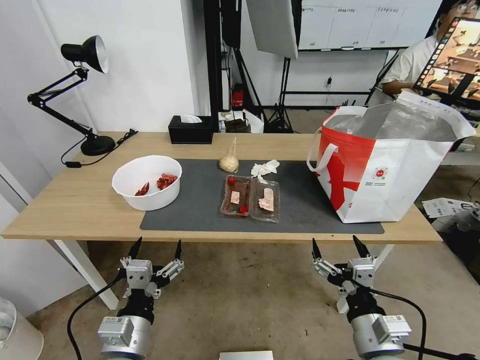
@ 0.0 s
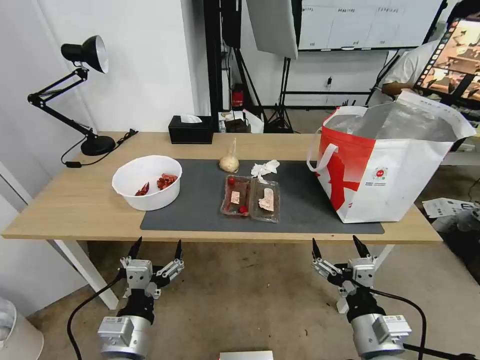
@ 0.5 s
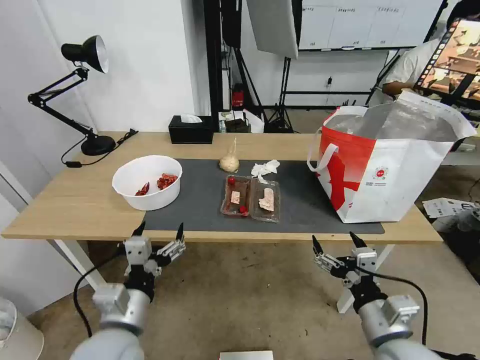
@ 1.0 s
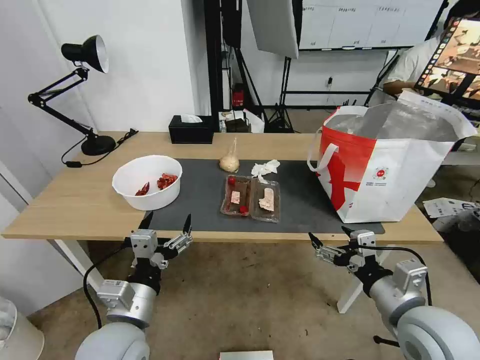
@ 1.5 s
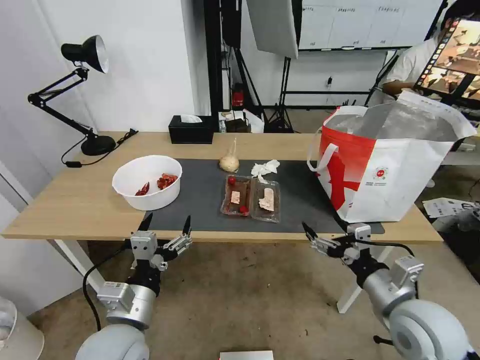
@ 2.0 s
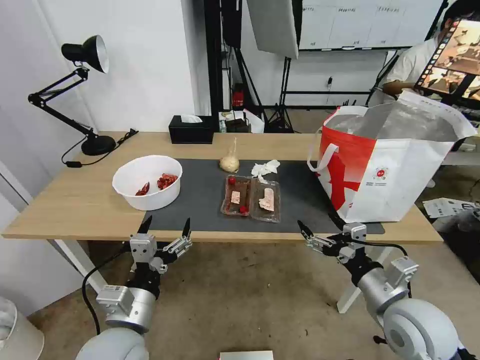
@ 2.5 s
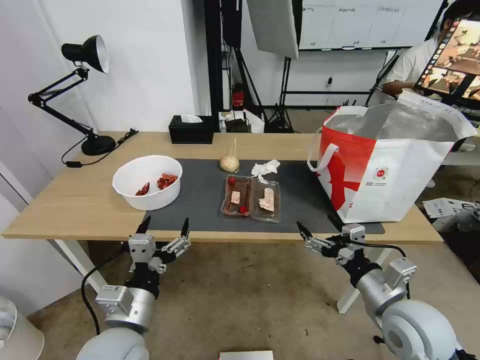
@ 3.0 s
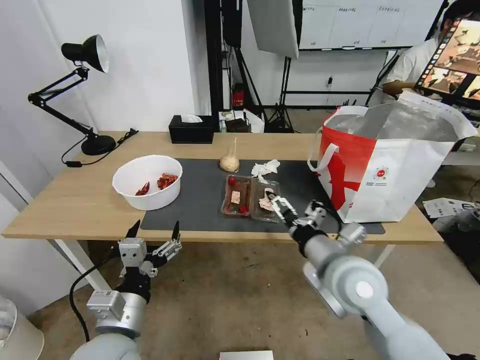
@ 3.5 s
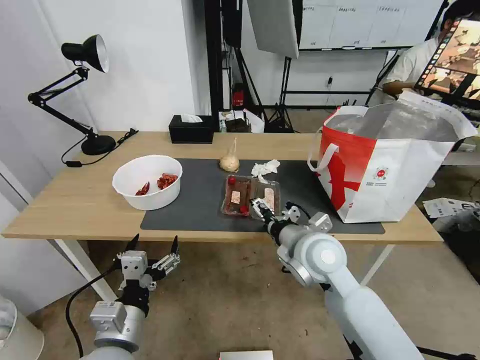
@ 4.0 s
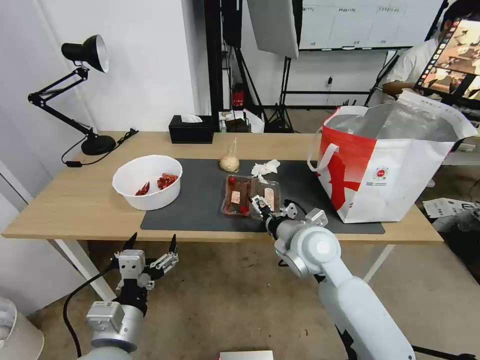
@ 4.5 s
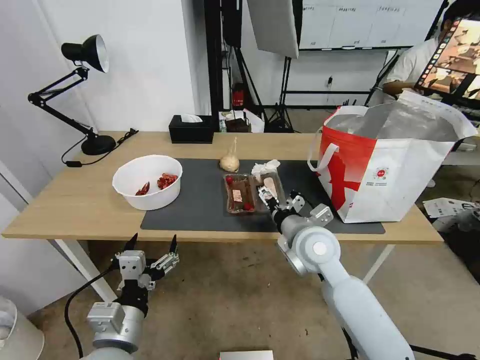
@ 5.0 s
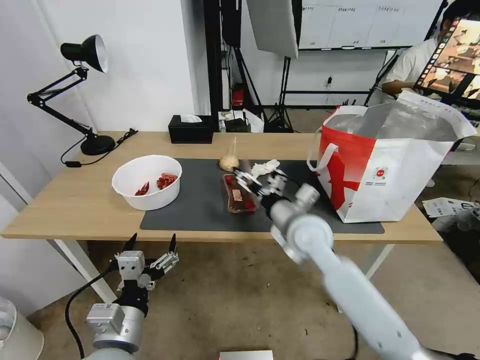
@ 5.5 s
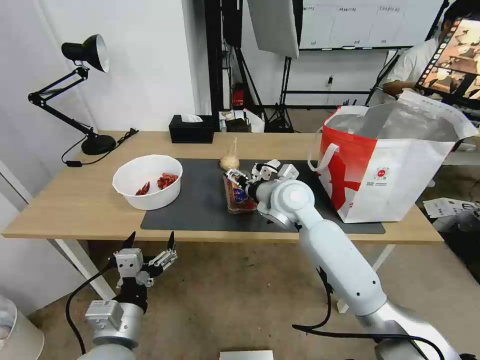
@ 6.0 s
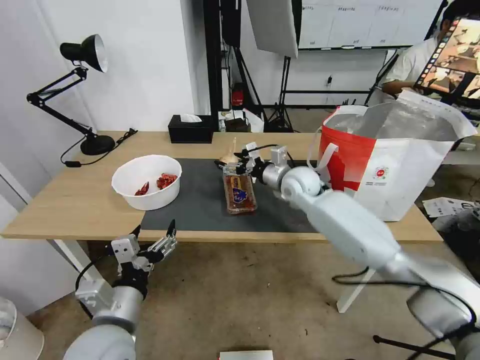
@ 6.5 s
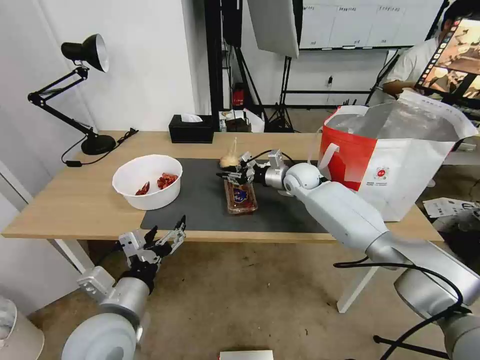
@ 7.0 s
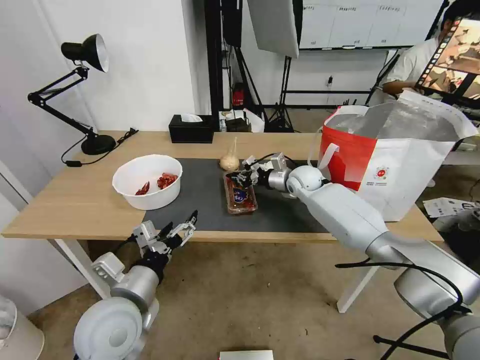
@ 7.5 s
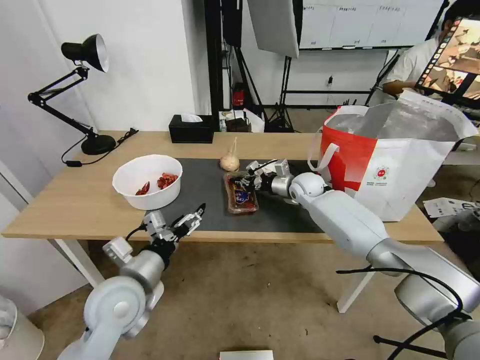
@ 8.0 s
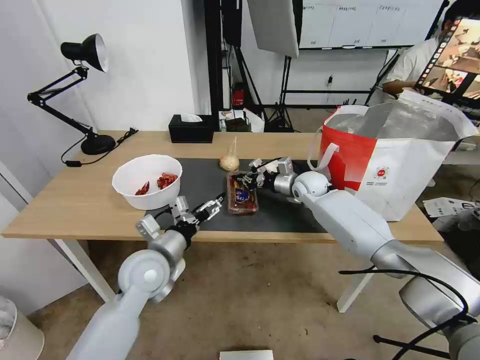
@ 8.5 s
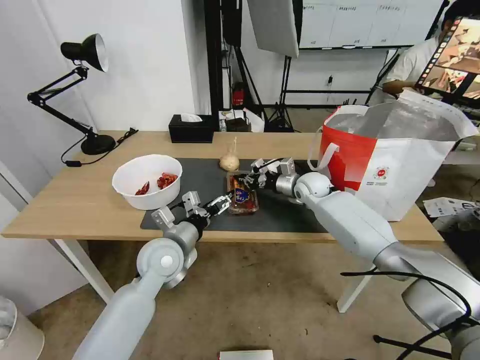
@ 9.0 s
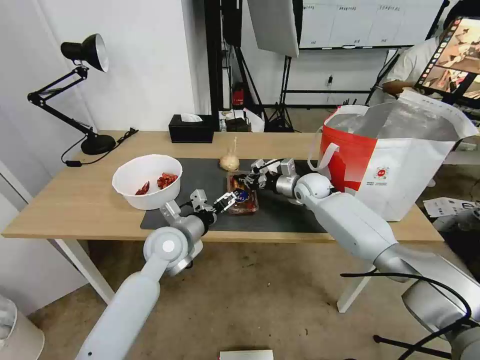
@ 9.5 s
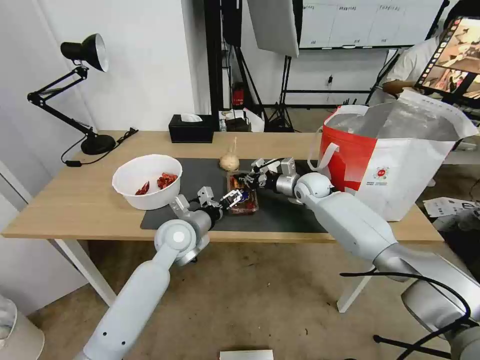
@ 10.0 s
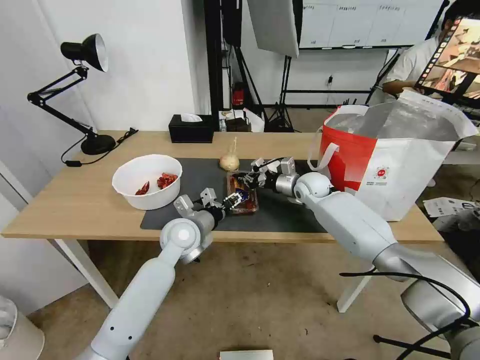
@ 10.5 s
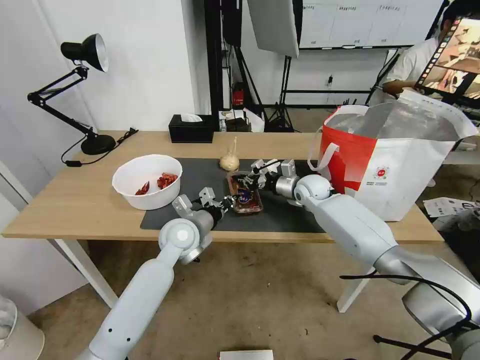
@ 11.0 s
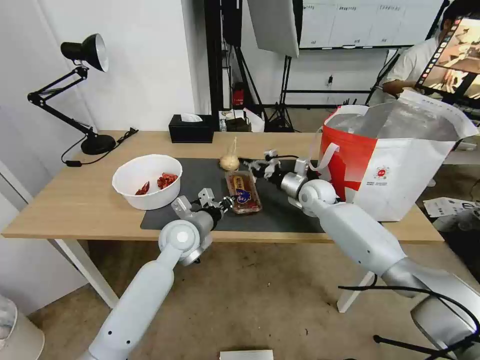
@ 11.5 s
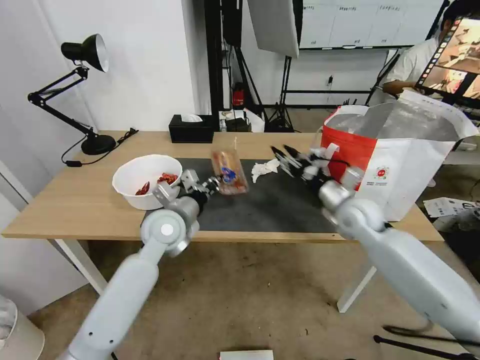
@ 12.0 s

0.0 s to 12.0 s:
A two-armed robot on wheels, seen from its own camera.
Task of the whole recording: Pick up the trash from the table and place it into the takeout bag.
2.0 to 4.0 s: The right gripper travels to the left and forward by roughly 20 cm.
4.0 to 6.0 s: The right gripper heads forward, covering approximately 10 cm.
6.0 to 8.0 s: The right gripper travels forward, downward and to the right by roughly 20 cm, and closes up. The left gripper goes about 10 cm forward.
8.0 to 10.0 s: The left gripper heads forward and to the right, covering approximately 15 cm.
10.0 to 12.0 s: The left gripper closes. Meanwhile the right gripper is displaced backward and to the right by some 15 cm, and opens.

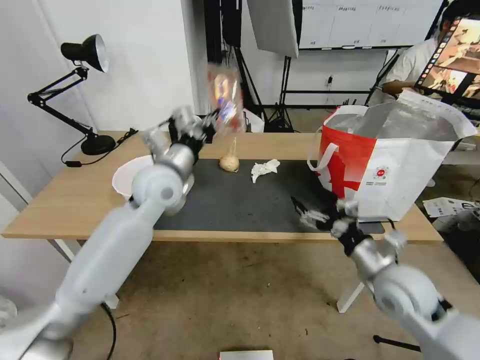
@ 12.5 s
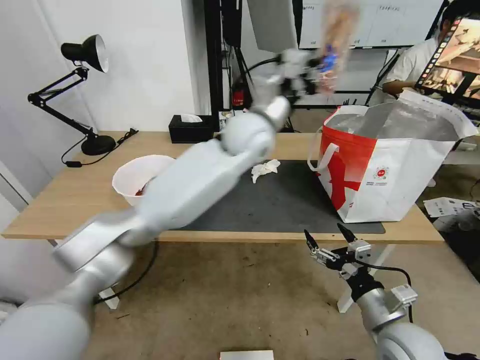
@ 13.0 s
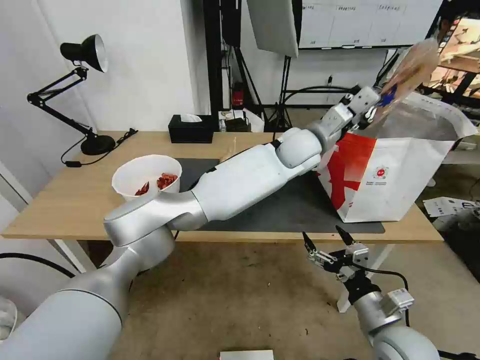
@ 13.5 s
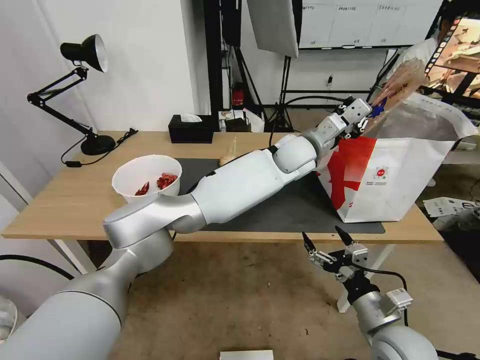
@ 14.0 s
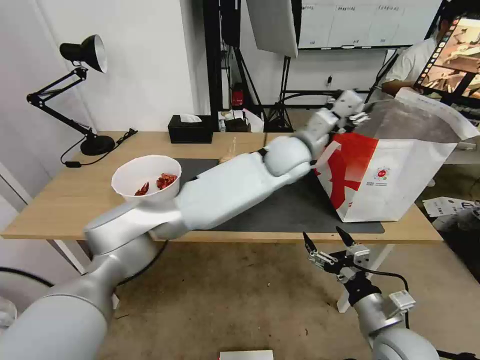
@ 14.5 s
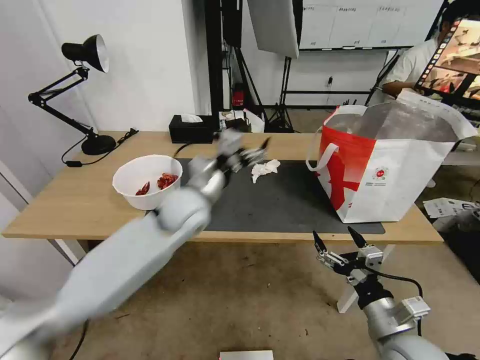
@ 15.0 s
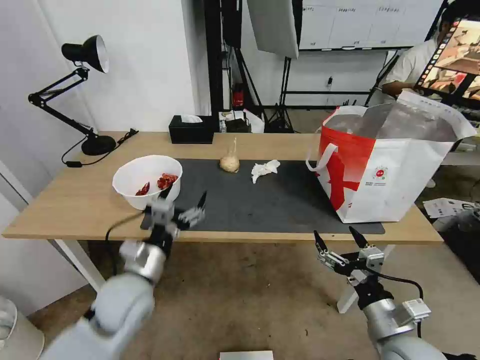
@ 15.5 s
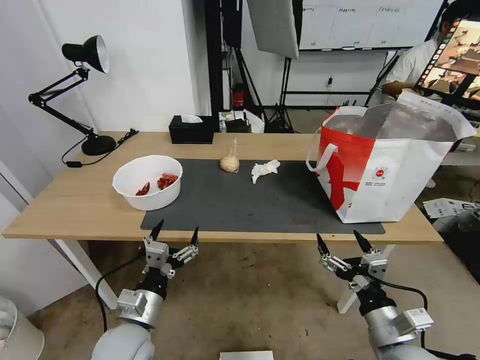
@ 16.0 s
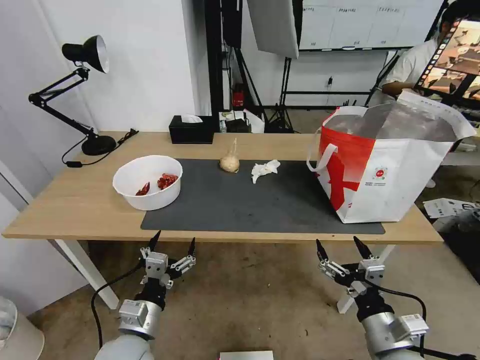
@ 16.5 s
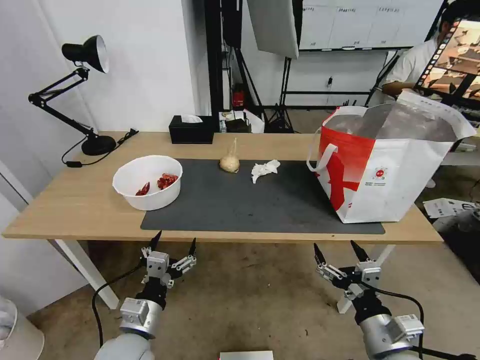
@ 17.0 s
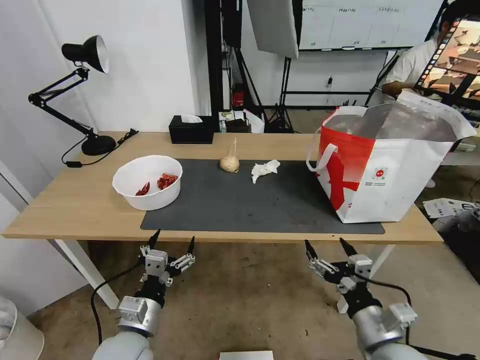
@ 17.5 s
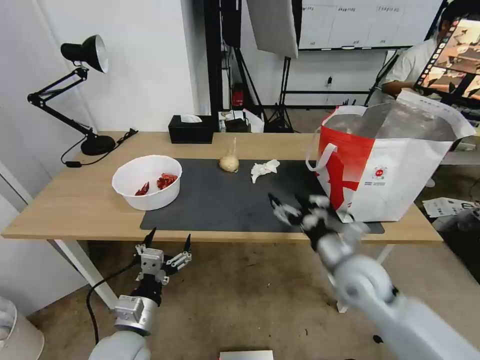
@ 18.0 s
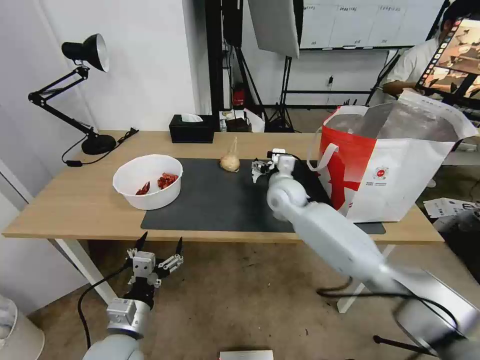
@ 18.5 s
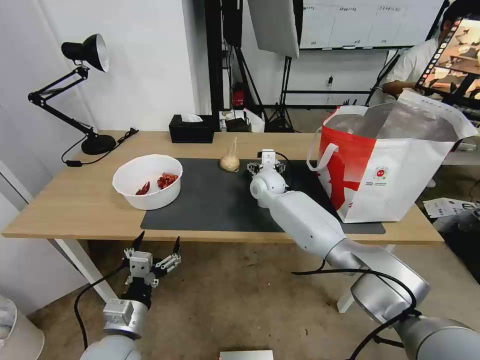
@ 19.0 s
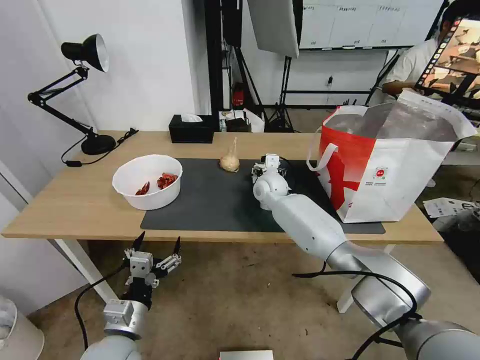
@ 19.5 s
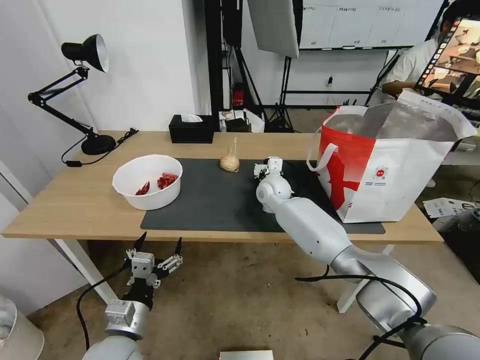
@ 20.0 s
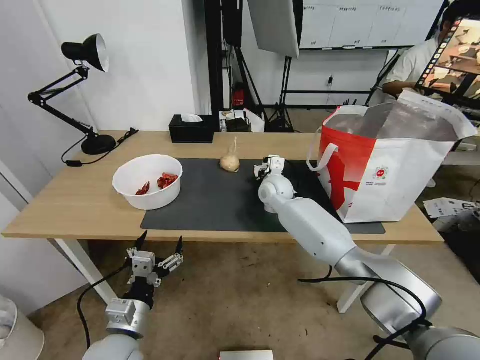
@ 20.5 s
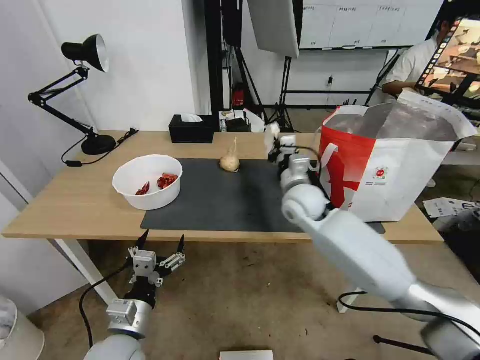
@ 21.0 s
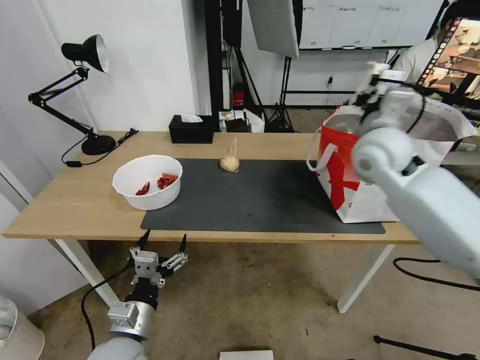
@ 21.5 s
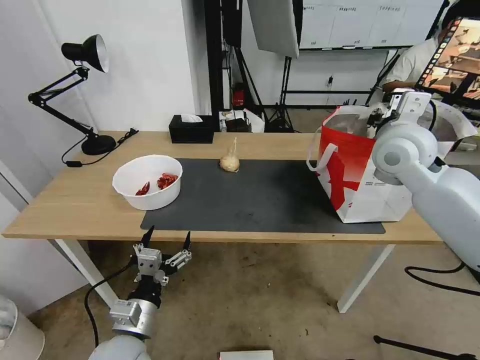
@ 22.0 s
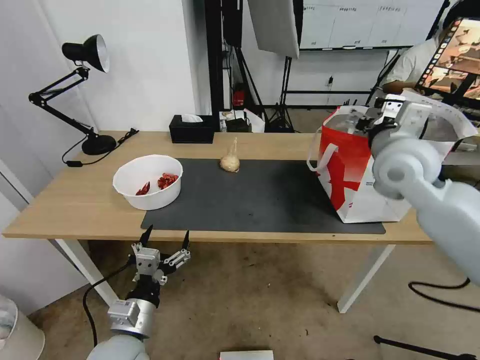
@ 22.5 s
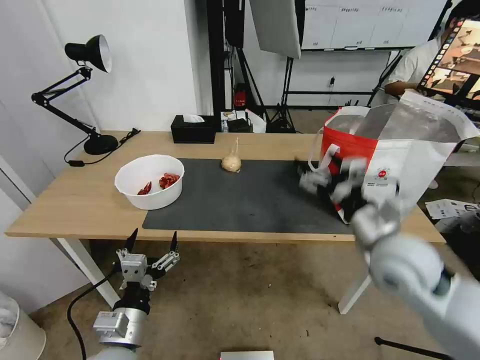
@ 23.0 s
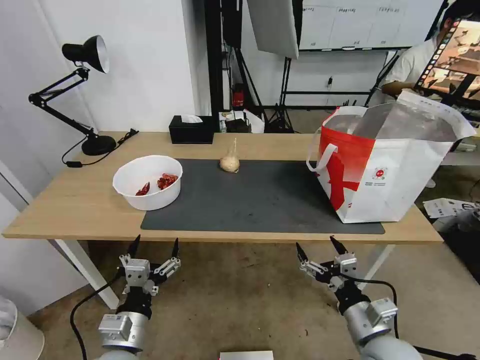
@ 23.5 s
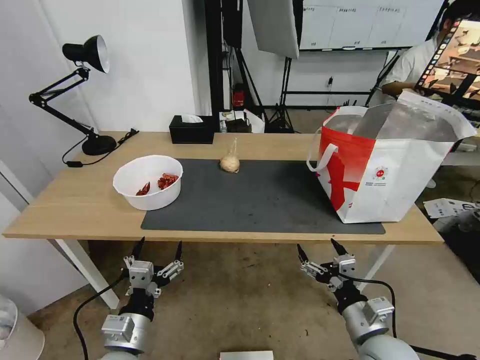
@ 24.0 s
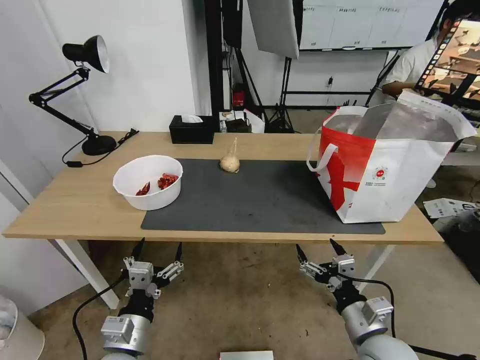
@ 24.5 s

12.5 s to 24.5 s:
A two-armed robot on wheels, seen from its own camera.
Task of the whole recording: Pick up the trash from the table and place it into the takeout bag.
12.5 to 14.5 s: The right gripper travels backward and downward by roughly 10 cm, while the left gripper moves to the right, some 25 cm, and opens.
14.5 to 16.5 s: The left gripper travels backward, to the left and downward by approximately 50 cm, and opens its fingers.
16.5 to 18.5 s: The right gripper heads forward and to the left, covering about 40 cm.
18.5 to 20.5 s: The right gripper shifts about 5 cm forward, and closes up.
20.5 to 22.5 s: The right gripper heads upward, to the right and backward, covering some 30 cm, and opens its fingers.
22.5 to 24.5 s: The right gripper shifts about 35 cm downward and backward.

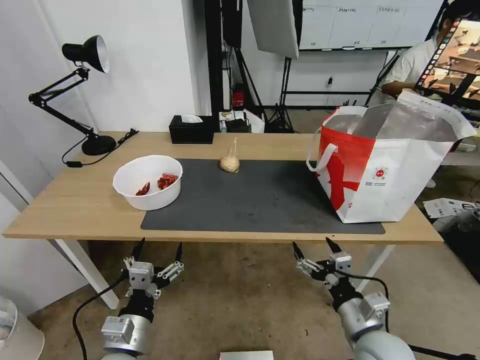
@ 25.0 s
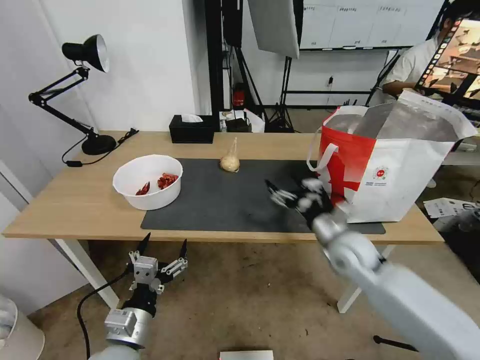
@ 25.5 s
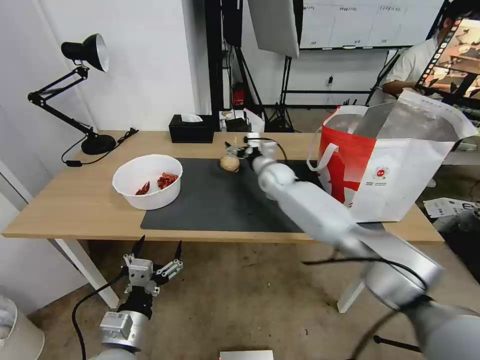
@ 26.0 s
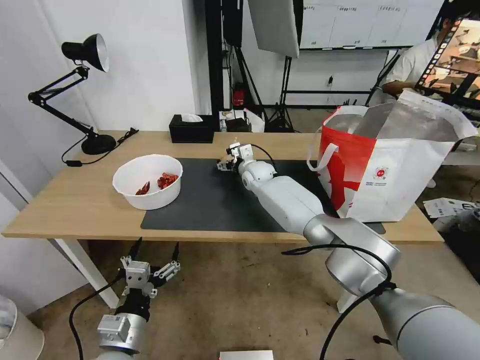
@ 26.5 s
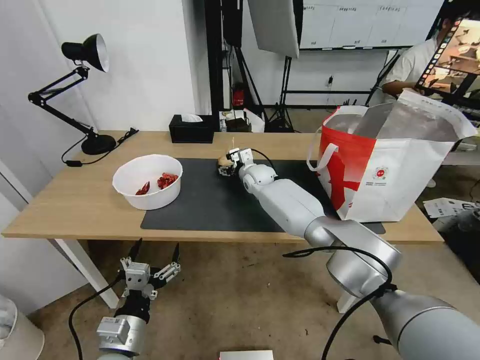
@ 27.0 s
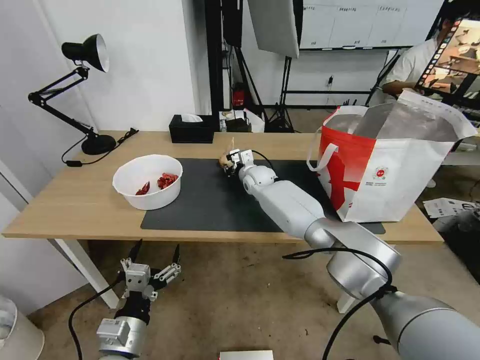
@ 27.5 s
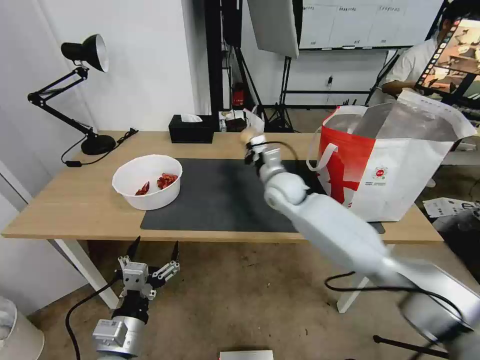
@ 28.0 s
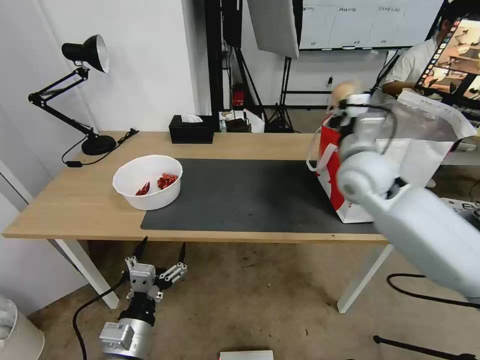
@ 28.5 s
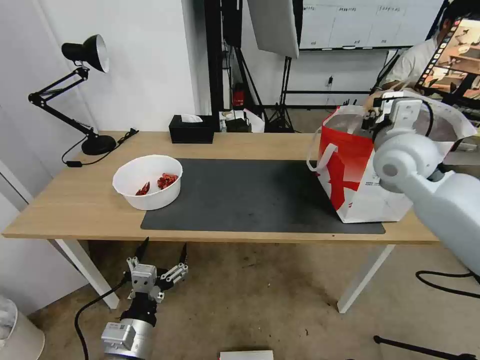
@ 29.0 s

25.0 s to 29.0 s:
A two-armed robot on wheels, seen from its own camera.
Task of the whole recording: Pick up the trash from the table and place it into the takeout bag.
25.0 to 27.0 s: The right gripper shifts approximately 50 cm forward and to the left.
27.0 to 29.0 s: The right gripper shifts roughly 35 cm to the right, upward and backward, and closes up.
